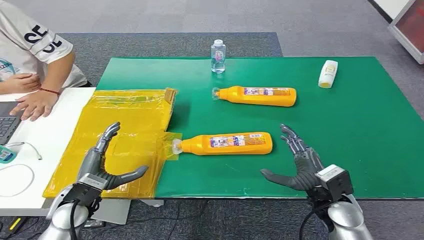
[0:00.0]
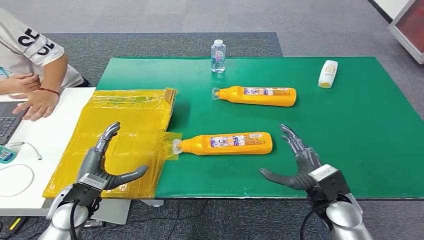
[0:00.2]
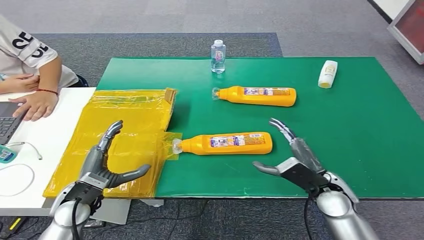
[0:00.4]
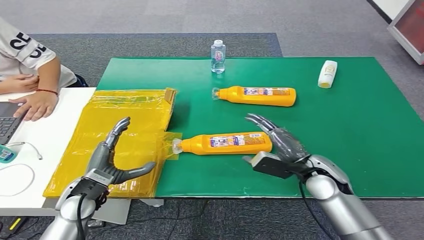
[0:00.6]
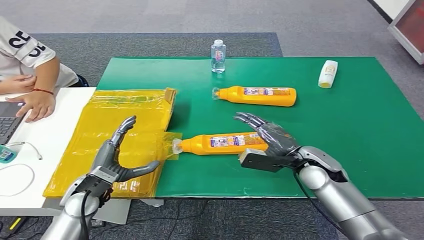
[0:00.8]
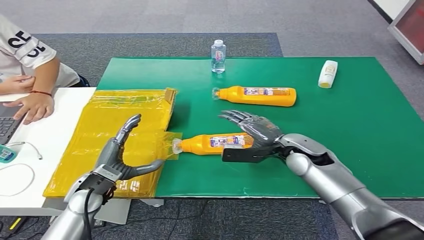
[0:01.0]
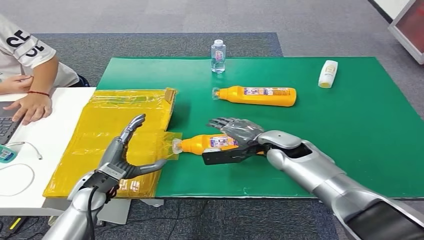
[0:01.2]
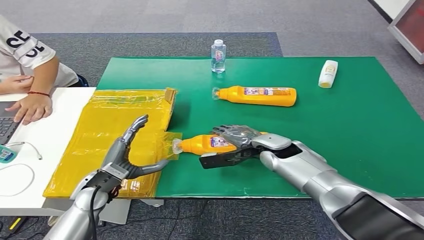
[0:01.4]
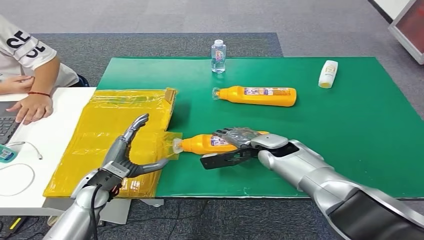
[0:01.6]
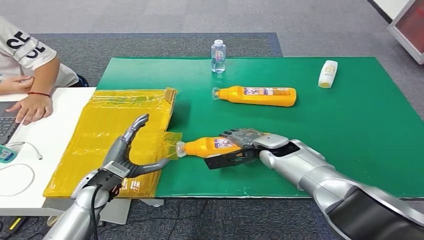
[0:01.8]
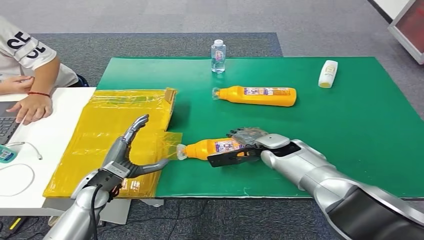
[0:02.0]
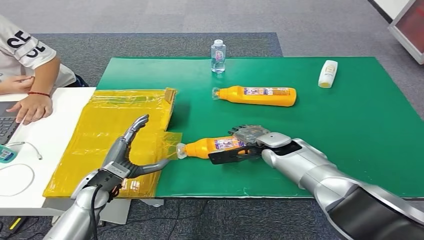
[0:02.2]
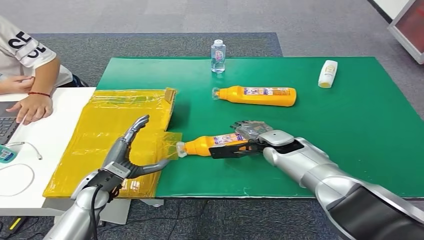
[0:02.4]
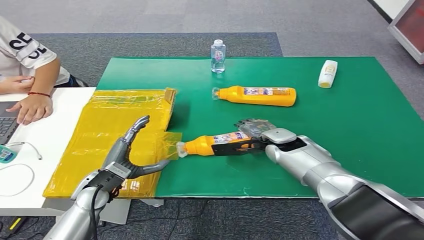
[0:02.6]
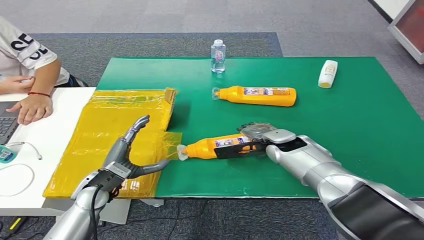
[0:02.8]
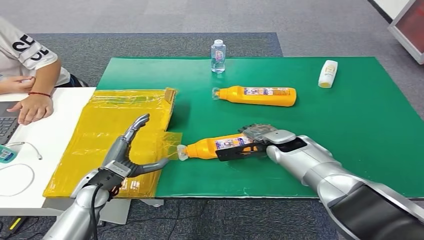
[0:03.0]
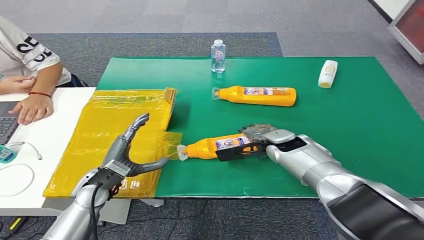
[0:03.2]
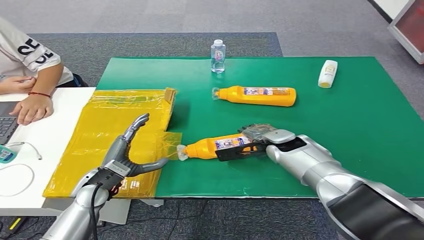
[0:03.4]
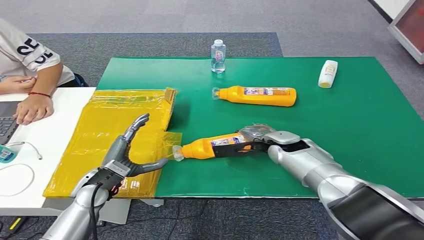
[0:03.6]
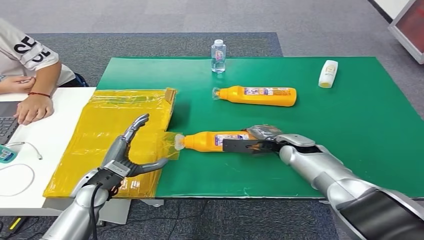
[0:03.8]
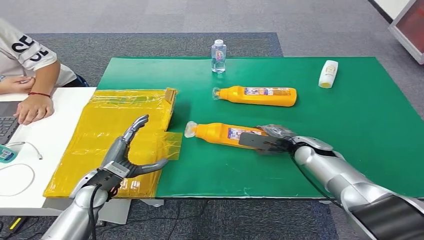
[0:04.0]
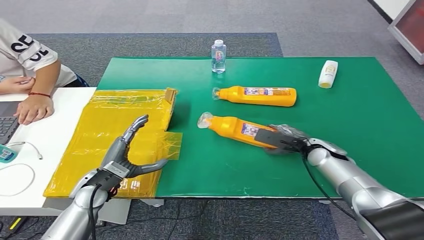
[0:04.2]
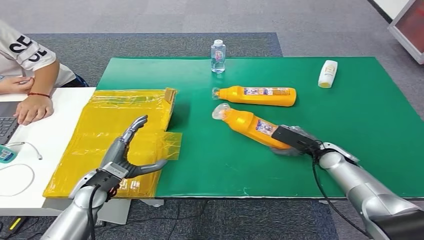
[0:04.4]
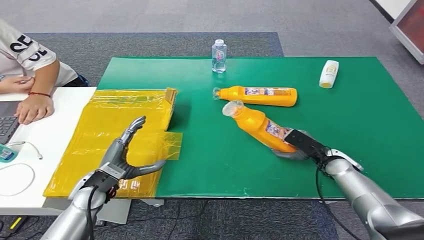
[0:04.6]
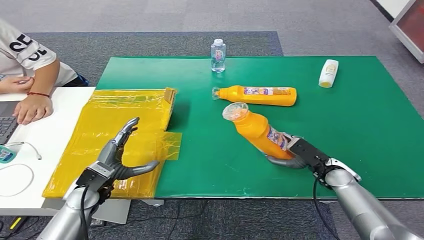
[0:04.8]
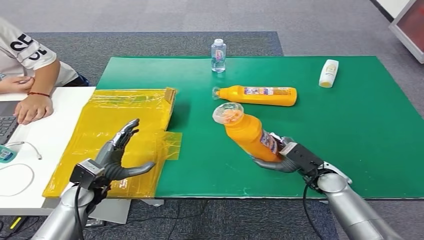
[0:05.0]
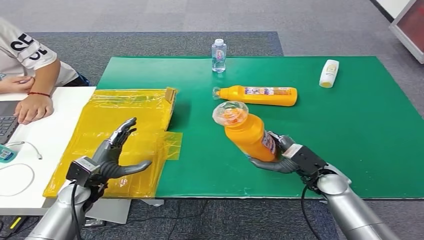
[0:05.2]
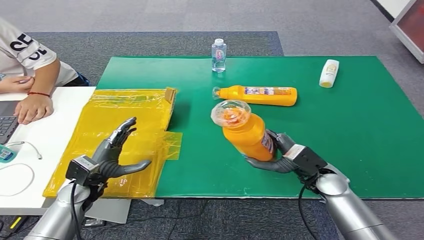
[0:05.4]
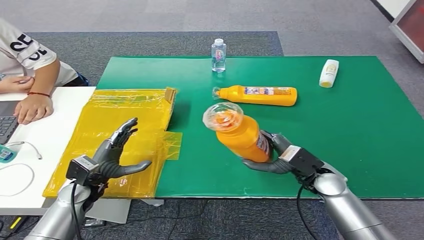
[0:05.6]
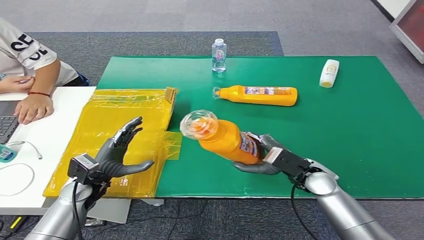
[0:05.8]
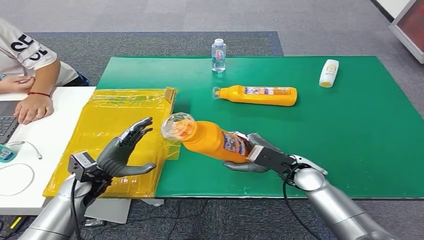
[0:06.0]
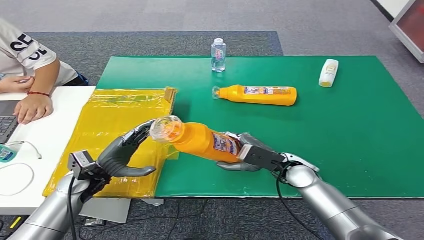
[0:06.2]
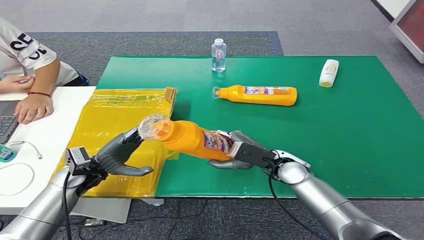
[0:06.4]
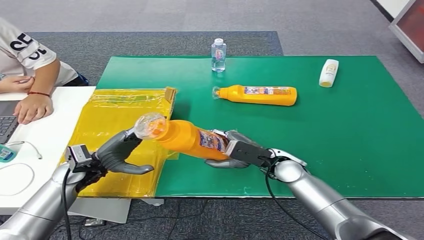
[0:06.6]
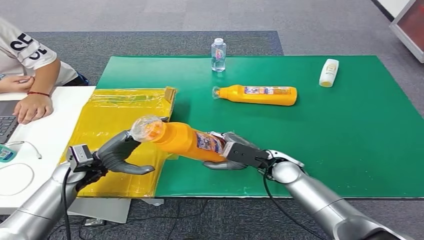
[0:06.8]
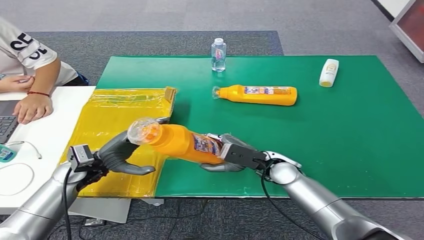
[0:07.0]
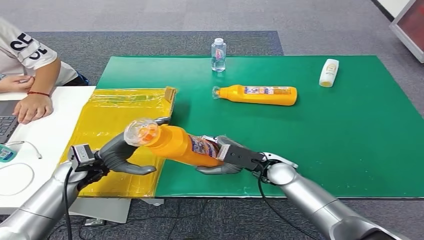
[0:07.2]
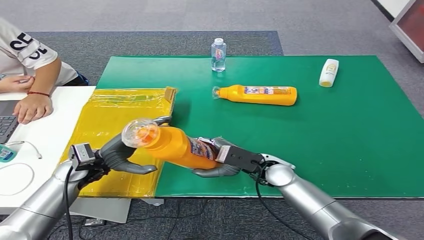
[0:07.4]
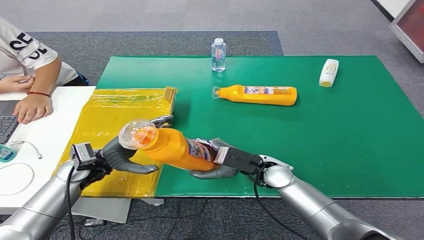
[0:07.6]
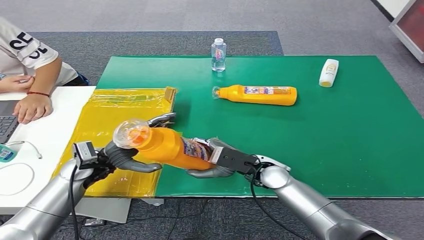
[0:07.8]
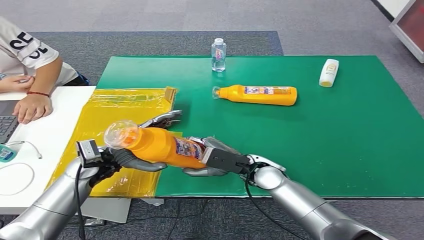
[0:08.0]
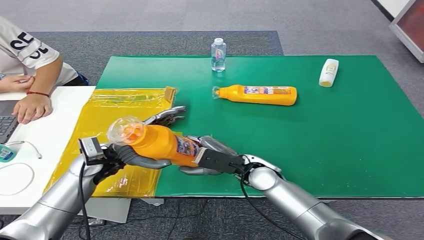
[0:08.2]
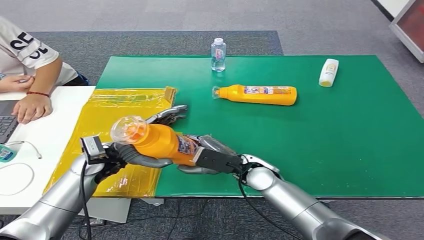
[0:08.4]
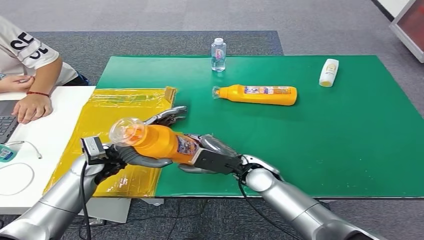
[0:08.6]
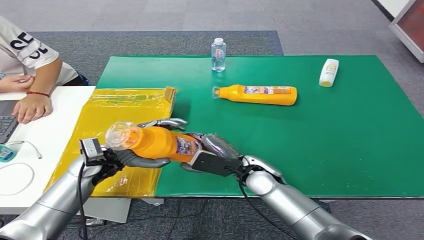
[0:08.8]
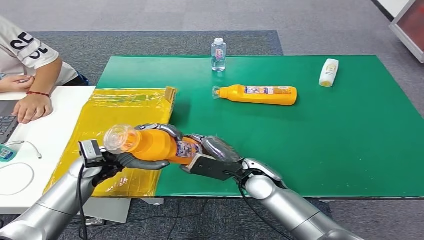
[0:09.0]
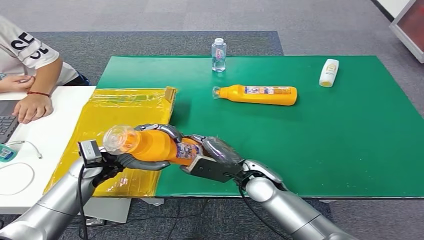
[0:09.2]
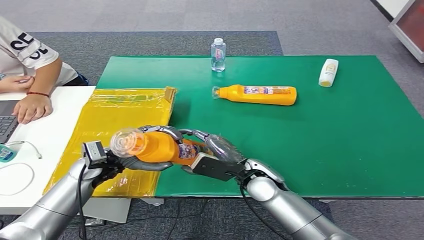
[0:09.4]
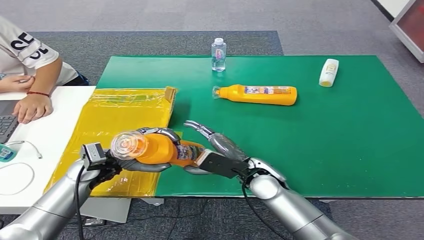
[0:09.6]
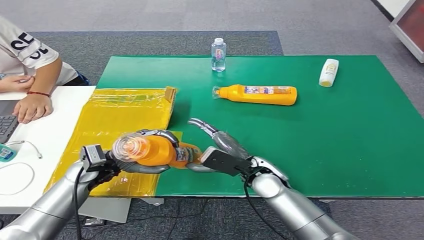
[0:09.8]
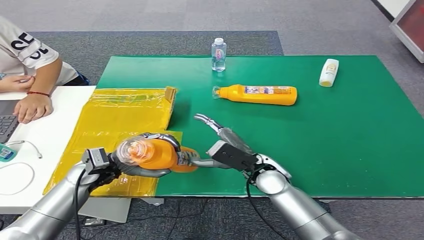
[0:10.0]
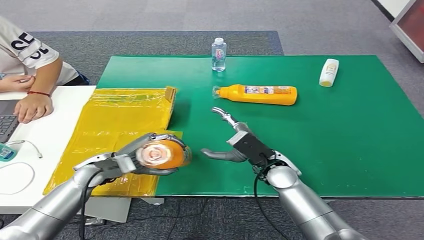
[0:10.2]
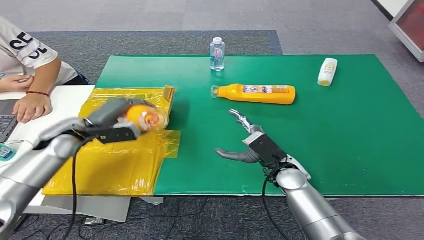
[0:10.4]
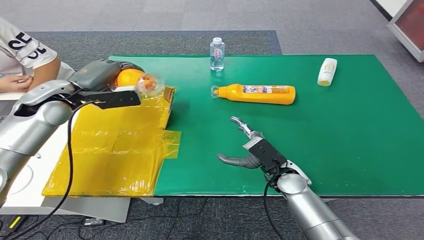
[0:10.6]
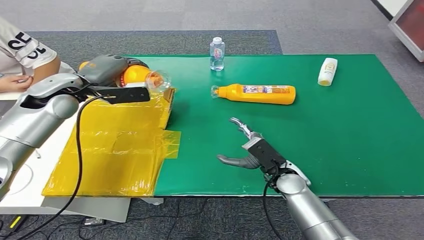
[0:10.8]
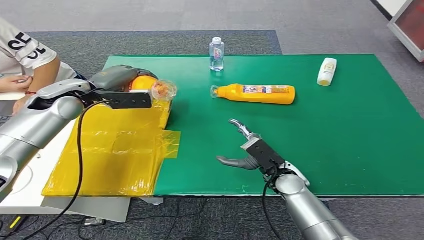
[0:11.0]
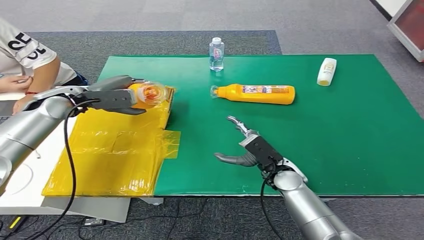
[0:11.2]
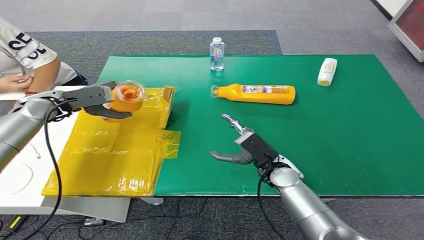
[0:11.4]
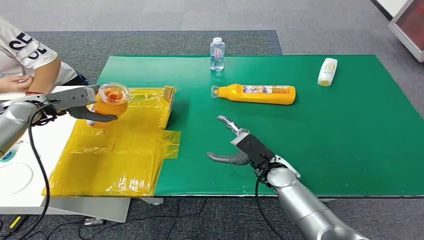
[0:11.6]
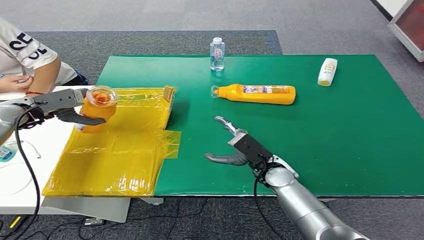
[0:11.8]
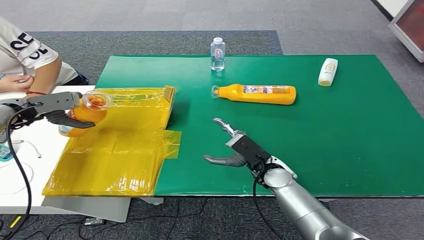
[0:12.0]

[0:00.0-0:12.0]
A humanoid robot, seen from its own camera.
Step, 0:00.0 to 0:04.2: Pick up the bottle from the table.
0:01.6 to 0:03.0: There are only small adjustments of the hands.
0:03.0 to 0:04.4: The right hand travels to the right by about 15 cm.
0:06.0 to 0:07.6: The right hand shifts about 5 cm to the left. Meanwhile the left hand changes place by roughly 5 cm.
0:10.4 to 0:12.0: The left hand shifts about 15 cm to the left.

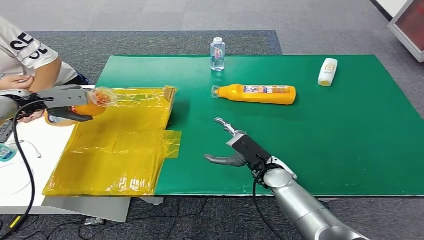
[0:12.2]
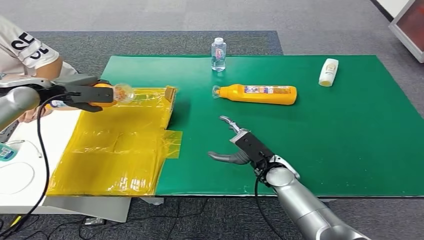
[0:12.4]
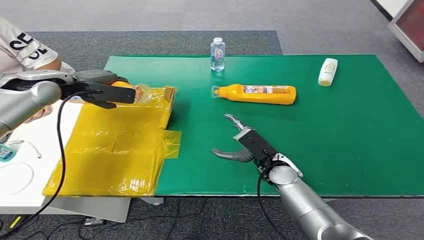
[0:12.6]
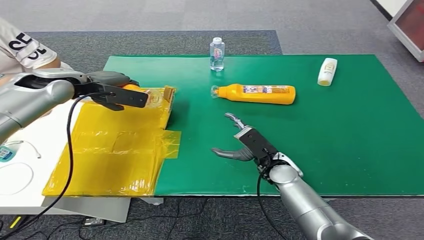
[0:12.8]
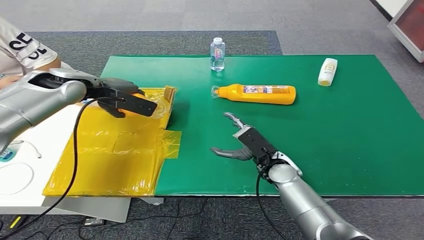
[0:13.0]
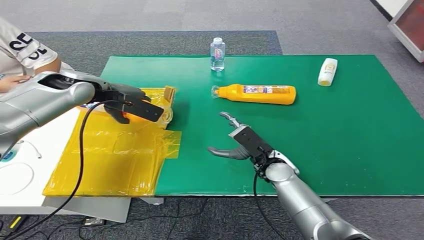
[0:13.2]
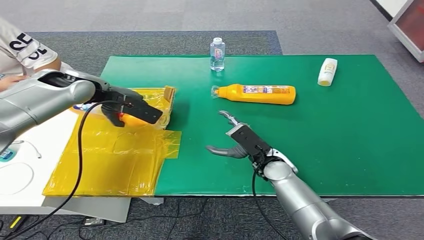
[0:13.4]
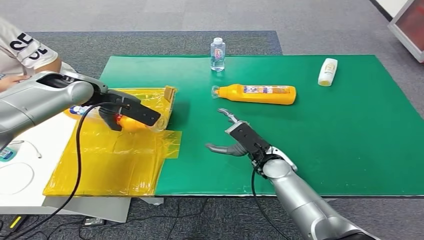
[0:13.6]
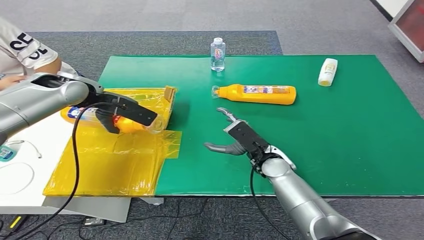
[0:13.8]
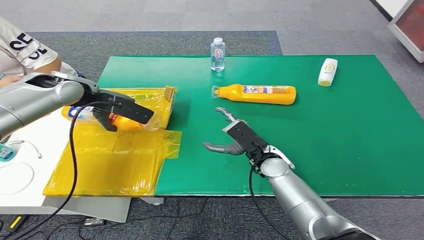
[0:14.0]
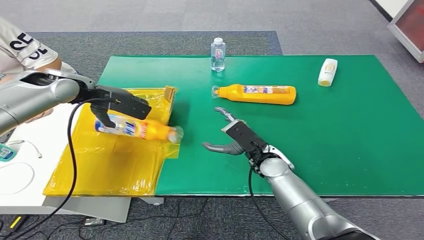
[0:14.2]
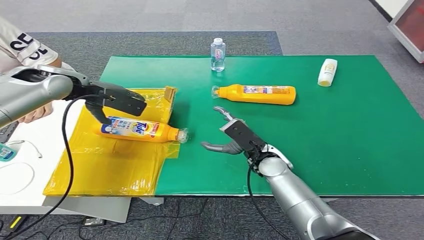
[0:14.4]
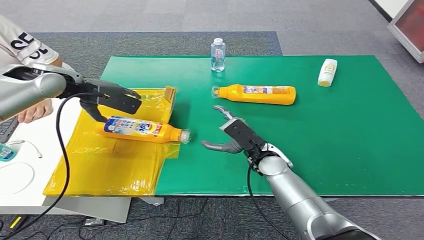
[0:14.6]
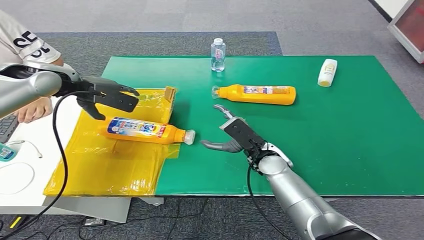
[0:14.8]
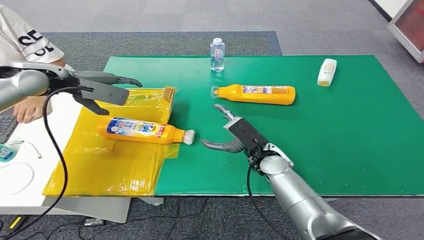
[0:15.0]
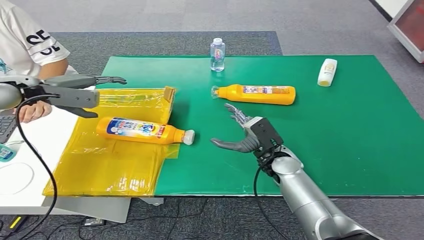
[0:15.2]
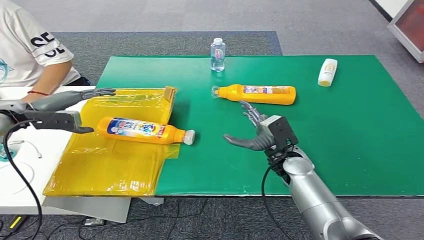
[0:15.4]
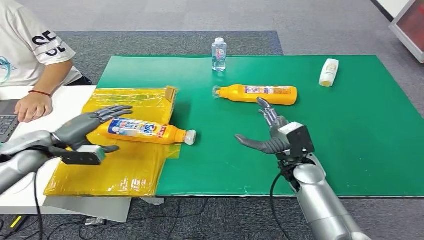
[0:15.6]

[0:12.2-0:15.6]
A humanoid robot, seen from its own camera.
Step, 0:12.2 to 0:15.6: Turn the bottle to the front side.
0:12.2 to 0:13.8: The left hand is displaced to the right by some 15 cm.

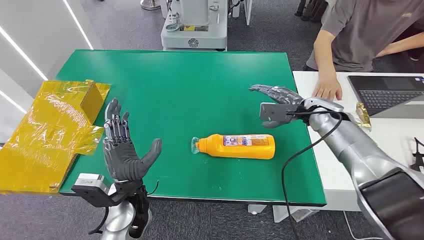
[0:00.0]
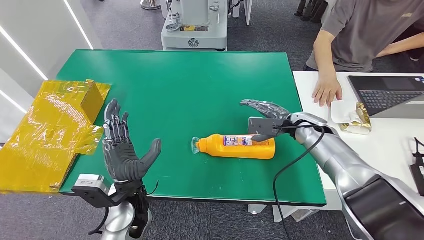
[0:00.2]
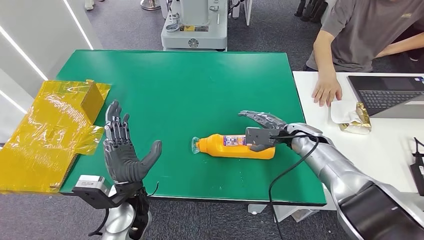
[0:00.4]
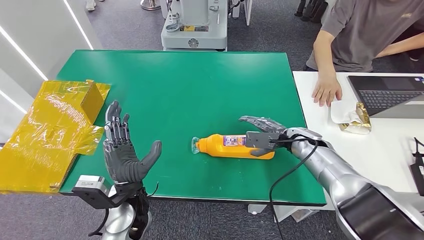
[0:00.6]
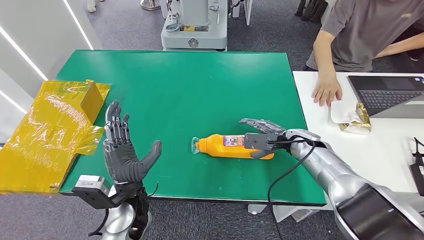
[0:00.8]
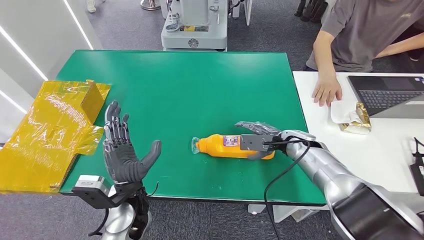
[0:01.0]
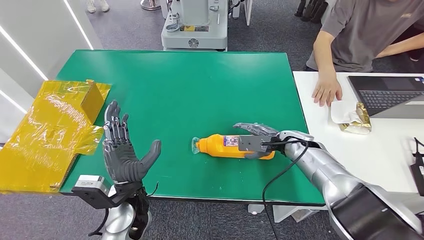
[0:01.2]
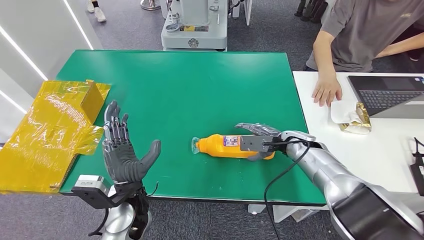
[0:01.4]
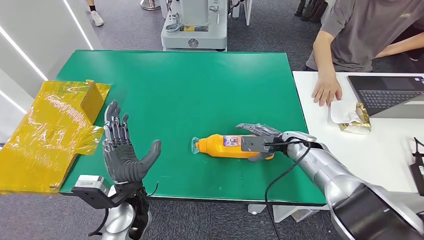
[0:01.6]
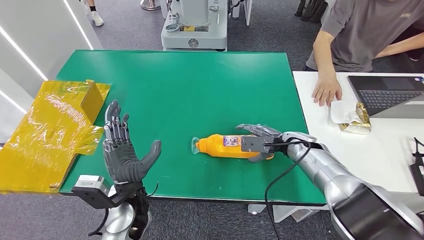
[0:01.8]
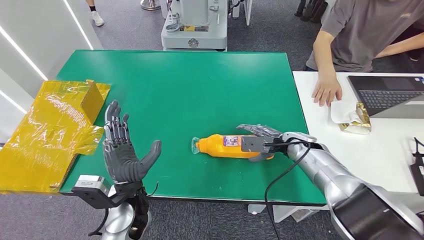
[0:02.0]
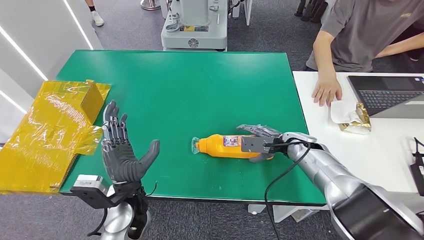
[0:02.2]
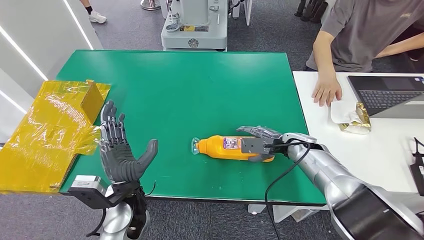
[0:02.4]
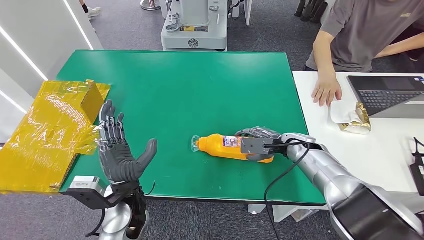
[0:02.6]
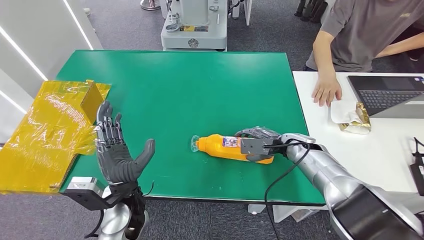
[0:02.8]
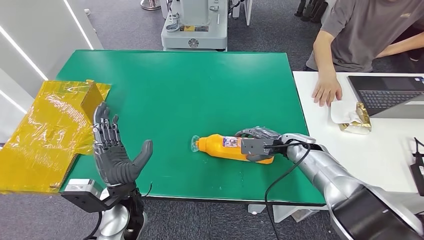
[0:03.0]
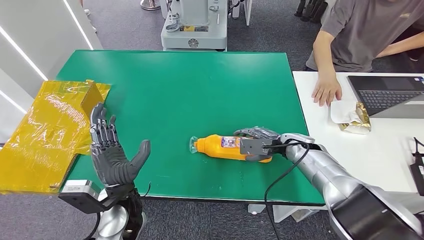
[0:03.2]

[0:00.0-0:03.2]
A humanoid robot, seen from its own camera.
0:01.6 to 0:03.2: Neither hand changes place.
